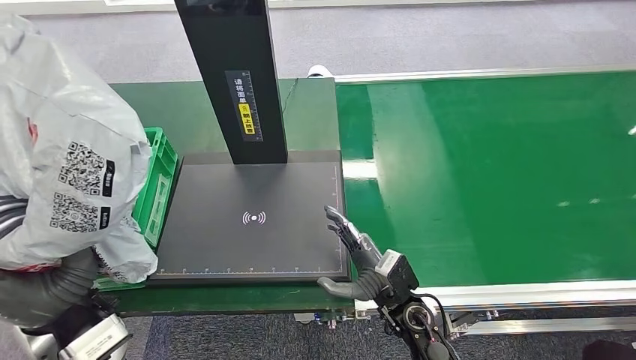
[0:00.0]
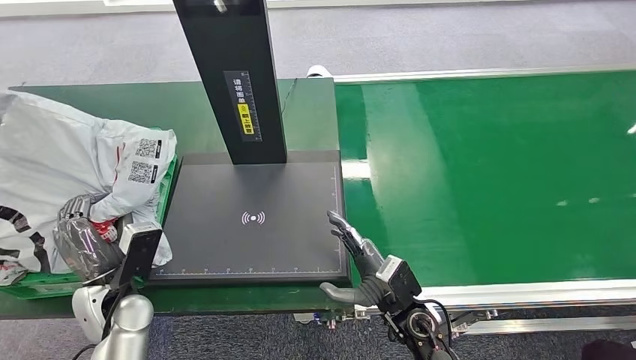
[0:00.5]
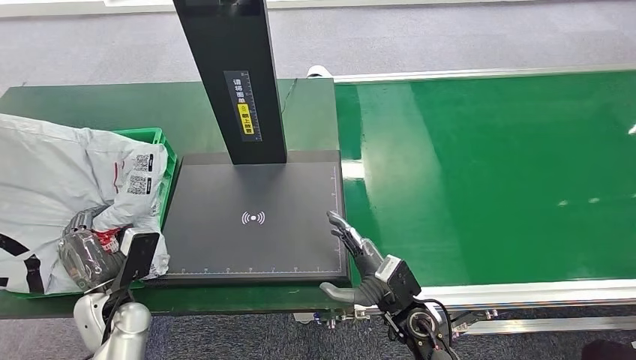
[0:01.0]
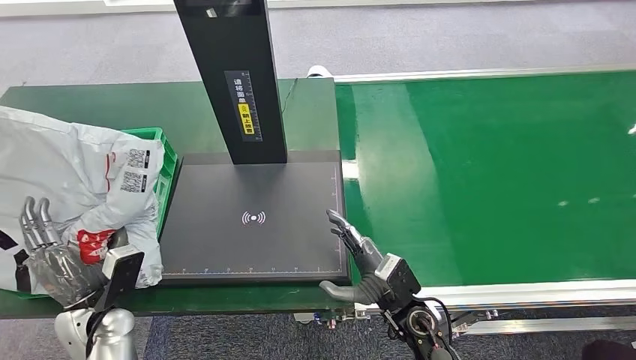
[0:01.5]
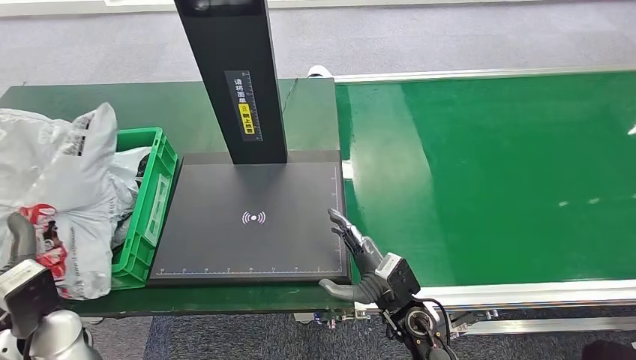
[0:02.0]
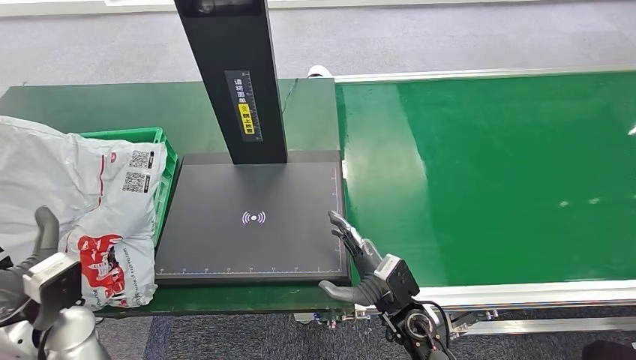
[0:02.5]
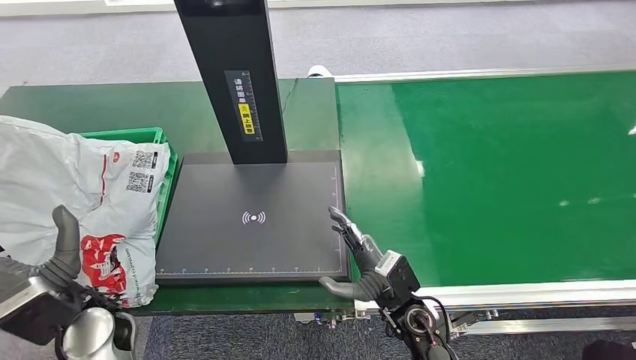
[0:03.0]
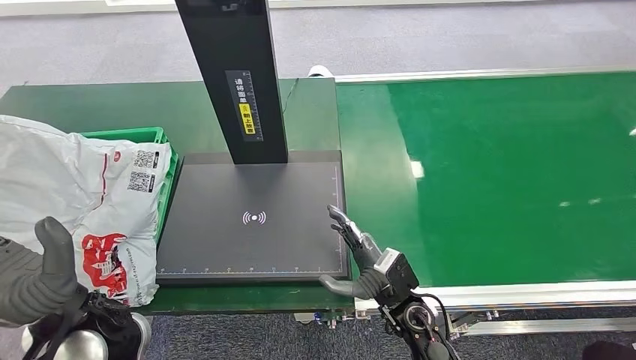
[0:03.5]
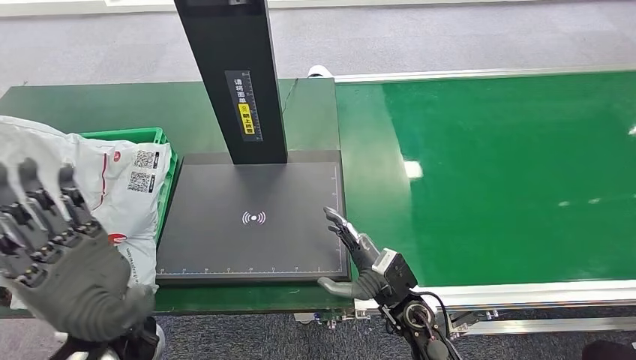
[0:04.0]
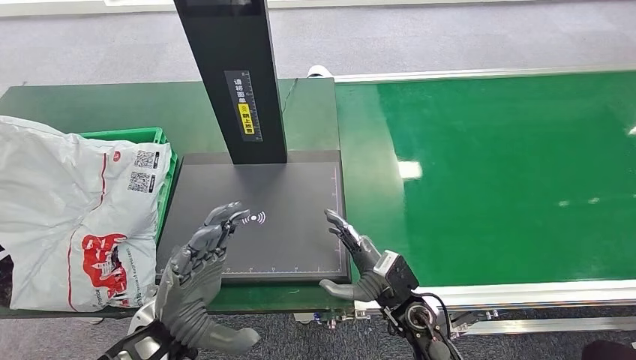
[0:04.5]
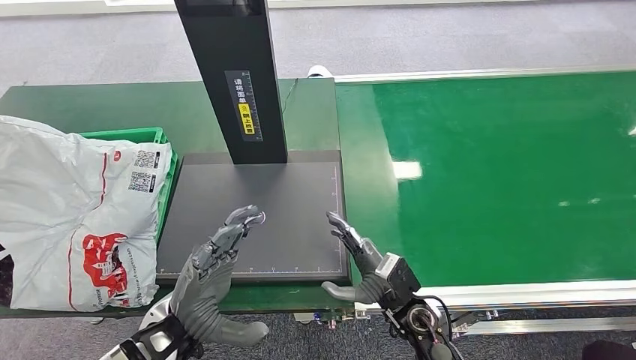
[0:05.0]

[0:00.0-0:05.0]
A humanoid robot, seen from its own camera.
Step, 0:00.0 to 0:05.0: Place the package into the parcel locker.
0:00.0 to 0:02.5: The left hand moves to the left and downward, some 10 cm.
0:02.5 to 0:05.0: The left hand shifts roughly 15 cm to the right.
